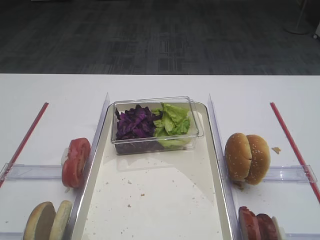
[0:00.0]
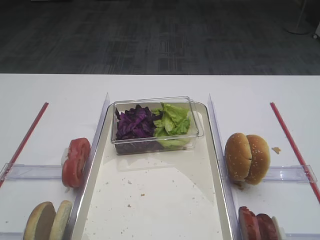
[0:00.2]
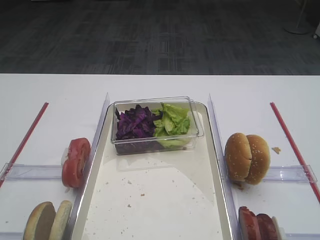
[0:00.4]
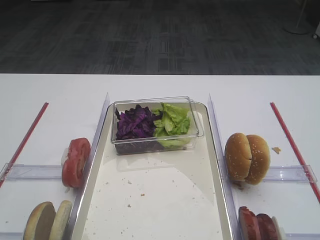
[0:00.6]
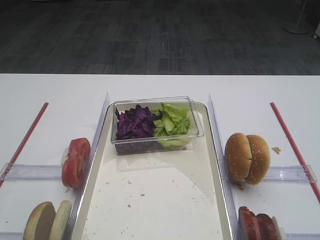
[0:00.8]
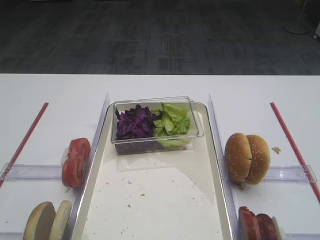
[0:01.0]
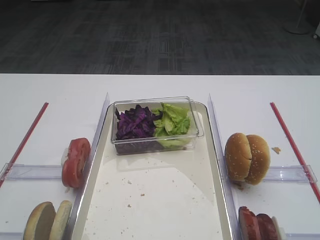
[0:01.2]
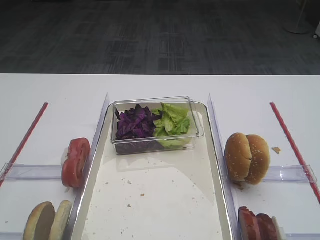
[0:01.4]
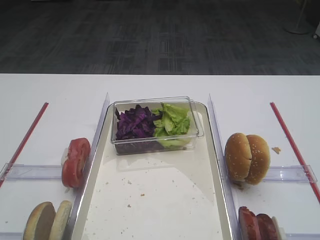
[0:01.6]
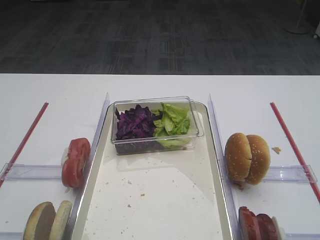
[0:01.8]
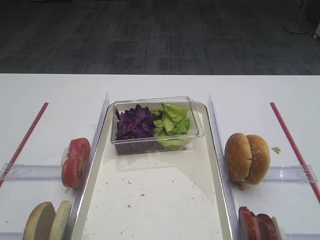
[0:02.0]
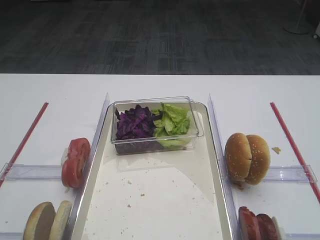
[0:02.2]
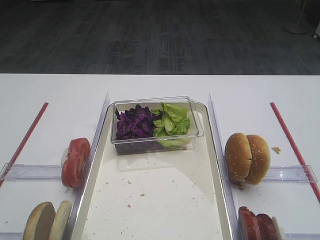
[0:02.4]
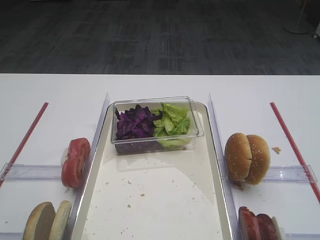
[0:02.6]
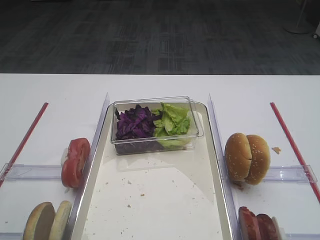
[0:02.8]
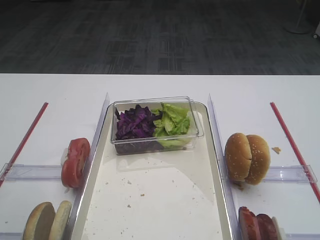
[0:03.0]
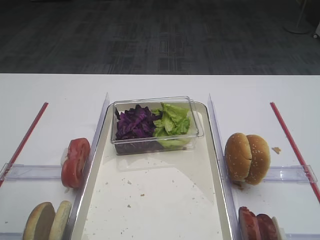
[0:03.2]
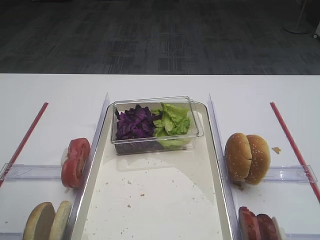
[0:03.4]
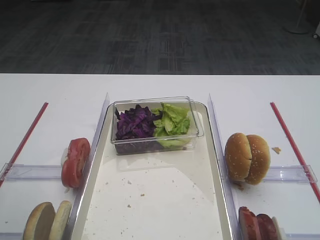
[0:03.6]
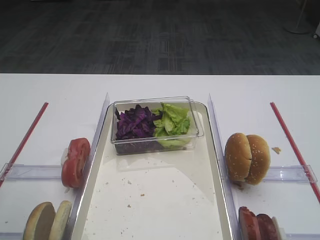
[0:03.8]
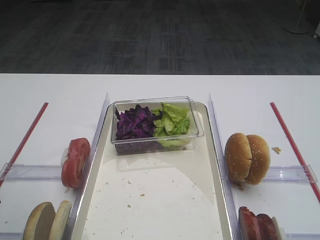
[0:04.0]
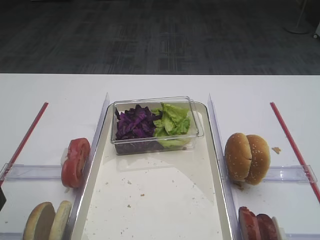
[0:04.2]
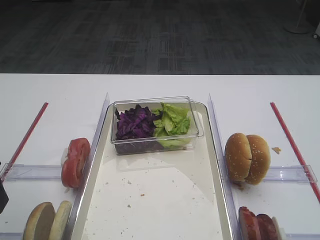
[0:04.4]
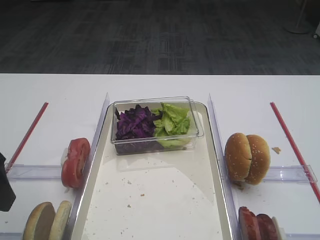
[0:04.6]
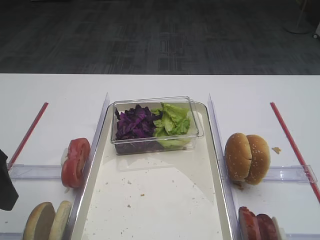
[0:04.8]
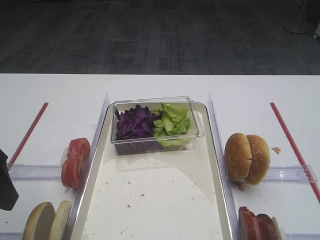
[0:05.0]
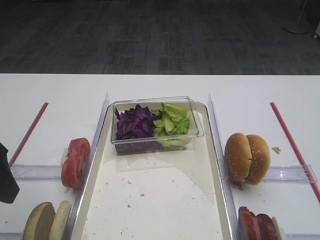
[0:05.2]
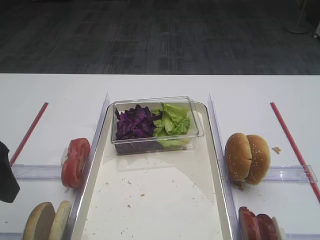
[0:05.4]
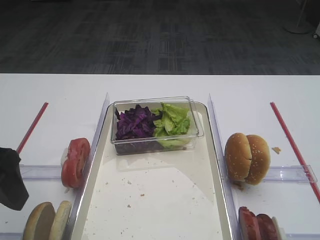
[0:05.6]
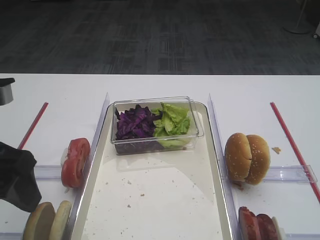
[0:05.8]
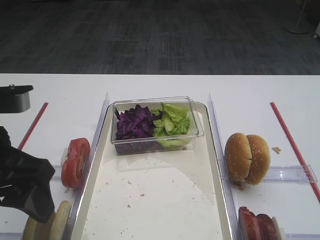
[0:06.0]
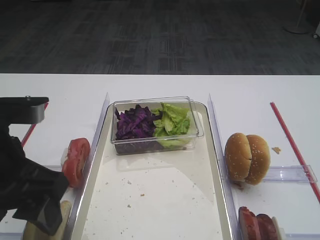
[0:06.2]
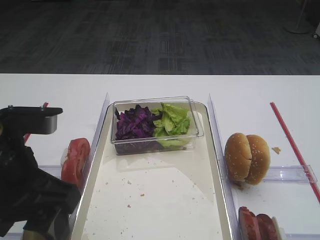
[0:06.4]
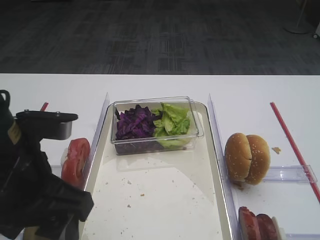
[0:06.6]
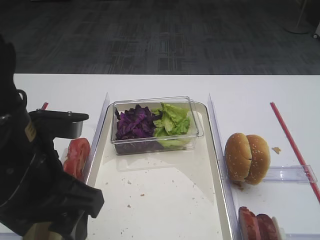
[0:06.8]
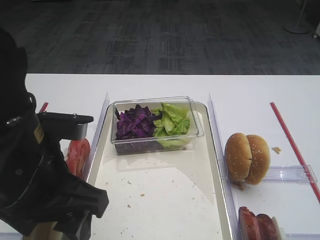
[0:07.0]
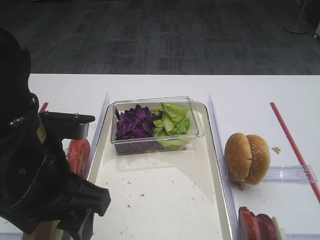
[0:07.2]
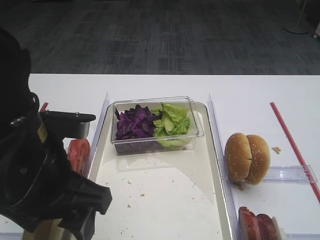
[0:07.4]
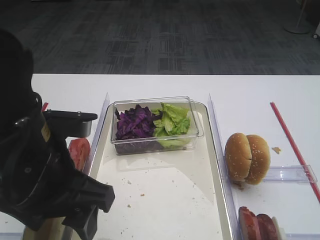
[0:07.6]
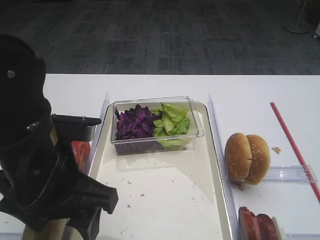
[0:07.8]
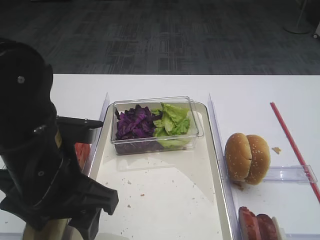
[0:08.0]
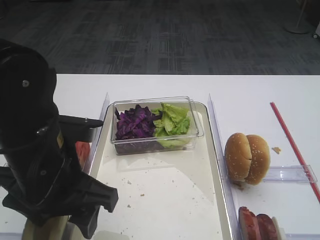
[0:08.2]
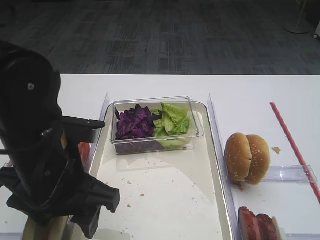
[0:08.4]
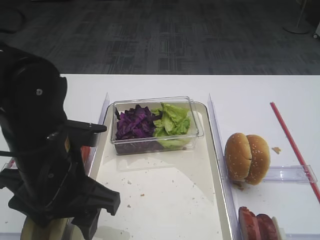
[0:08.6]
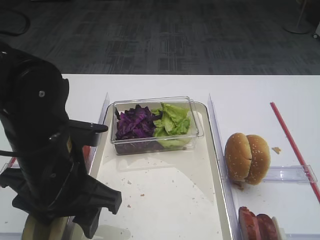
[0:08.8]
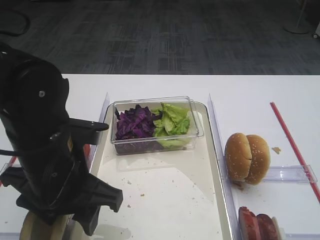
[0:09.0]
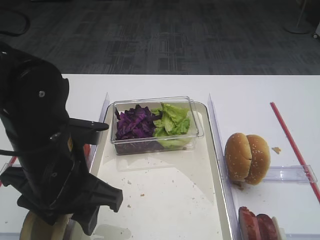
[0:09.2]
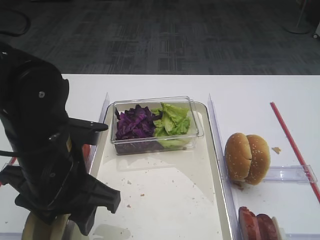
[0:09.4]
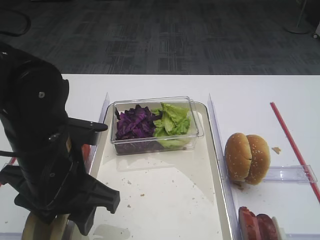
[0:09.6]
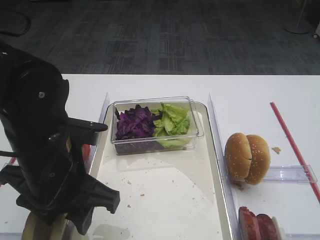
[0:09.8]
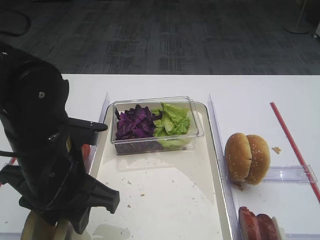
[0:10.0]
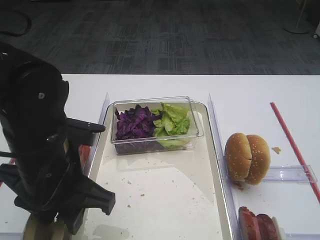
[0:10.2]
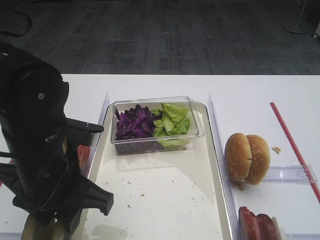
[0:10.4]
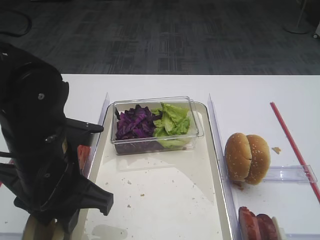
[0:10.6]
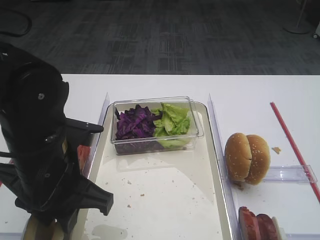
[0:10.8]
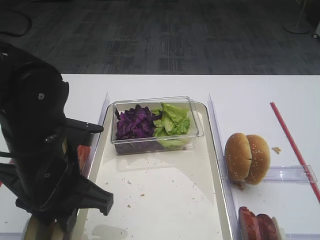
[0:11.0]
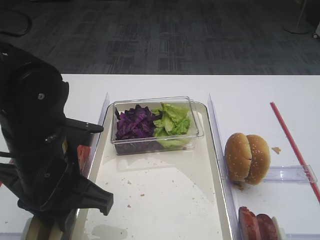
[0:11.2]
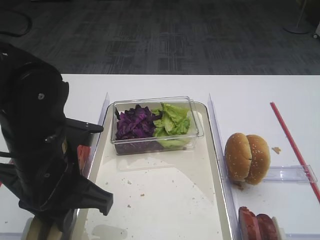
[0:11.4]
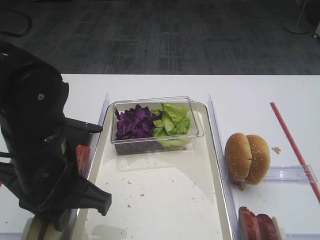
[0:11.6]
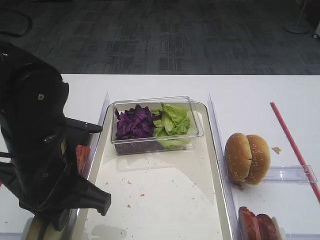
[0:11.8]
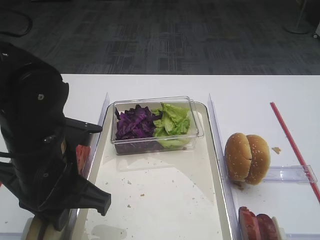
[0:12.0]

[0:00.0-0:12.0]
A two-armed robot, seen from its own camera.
0:04.4 to 0:06.0: The left gripper travels to the right by roughly 5 cm.
0:06.0 to 0:07.6: The left gripper shifts about 5 cm to the right.
0:07.6 to 0:09.0: The grippers make only small movements.
0:09.0 to 0:10.4: Neither gripper changes place.
0:10.4 to 0:12.0: The left gripper closes up.

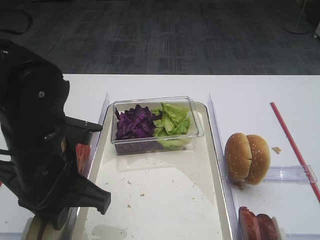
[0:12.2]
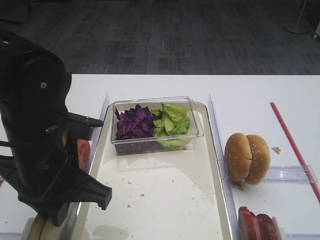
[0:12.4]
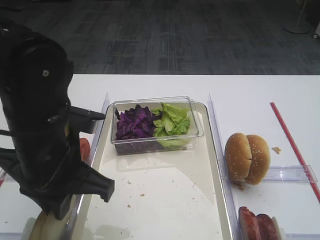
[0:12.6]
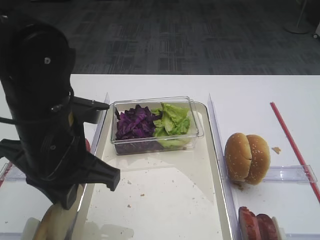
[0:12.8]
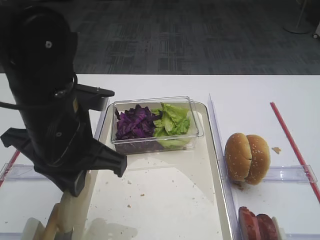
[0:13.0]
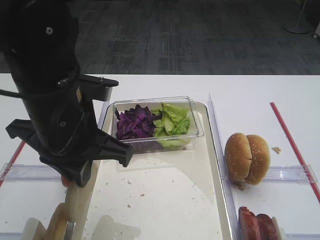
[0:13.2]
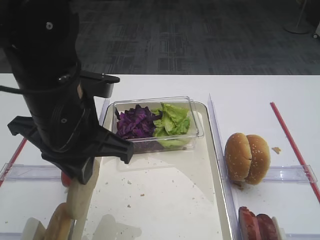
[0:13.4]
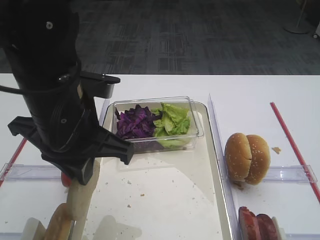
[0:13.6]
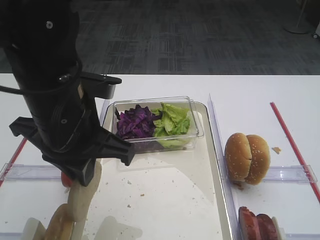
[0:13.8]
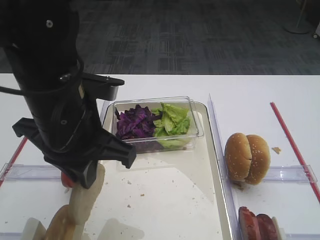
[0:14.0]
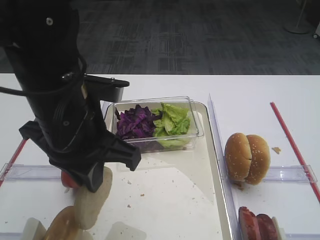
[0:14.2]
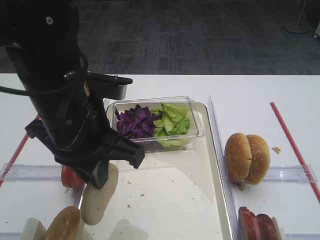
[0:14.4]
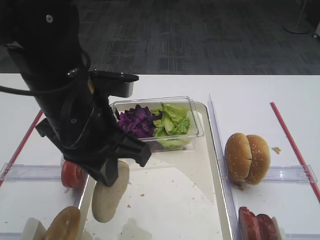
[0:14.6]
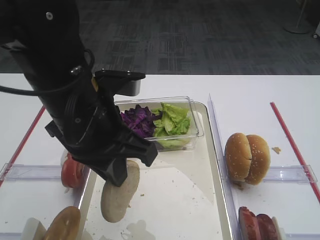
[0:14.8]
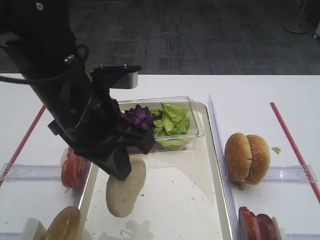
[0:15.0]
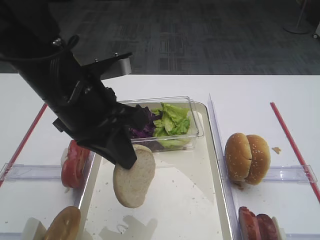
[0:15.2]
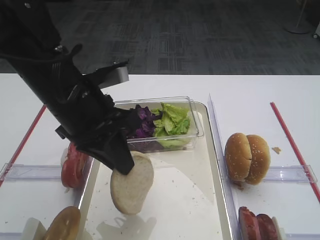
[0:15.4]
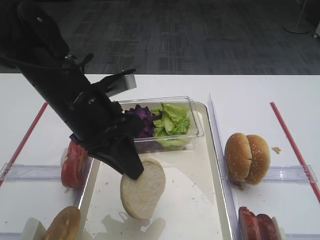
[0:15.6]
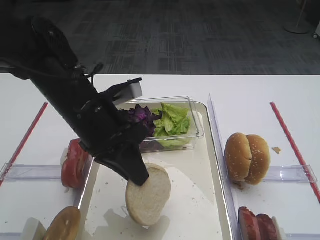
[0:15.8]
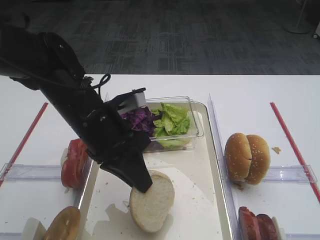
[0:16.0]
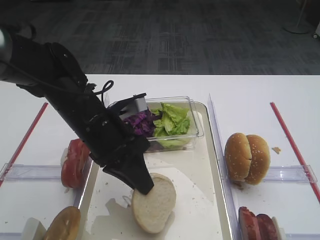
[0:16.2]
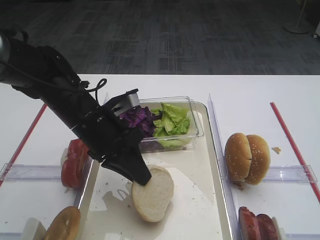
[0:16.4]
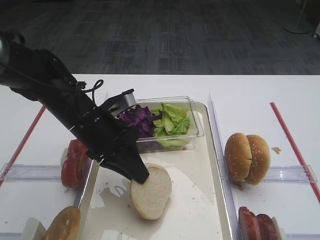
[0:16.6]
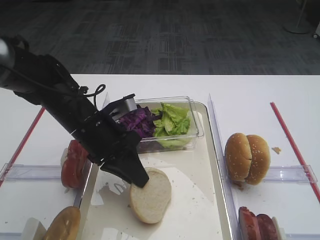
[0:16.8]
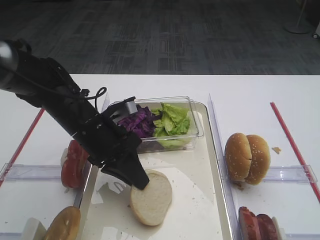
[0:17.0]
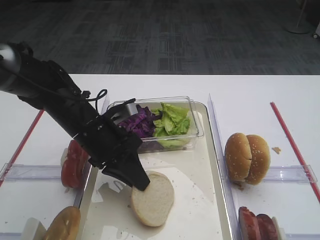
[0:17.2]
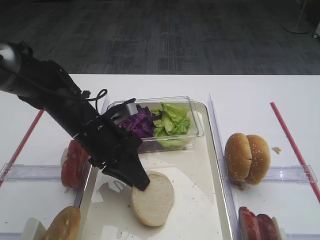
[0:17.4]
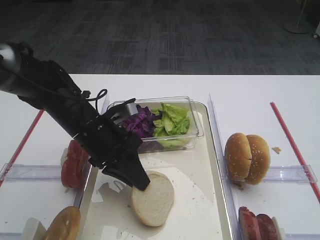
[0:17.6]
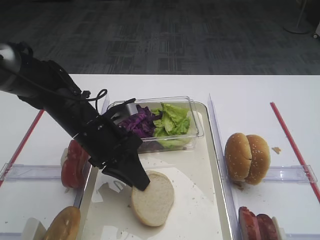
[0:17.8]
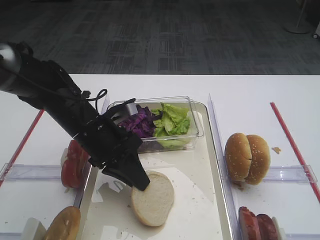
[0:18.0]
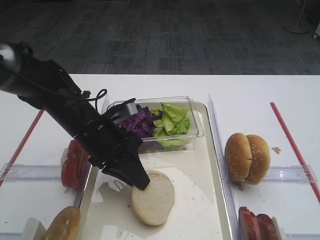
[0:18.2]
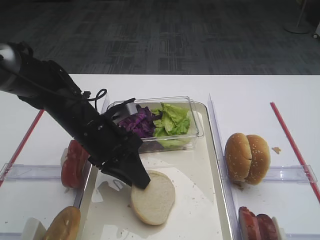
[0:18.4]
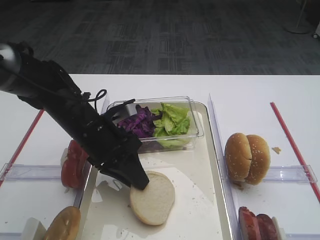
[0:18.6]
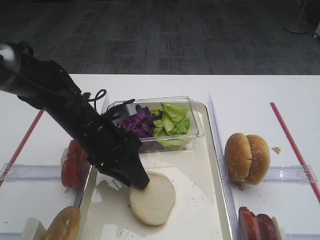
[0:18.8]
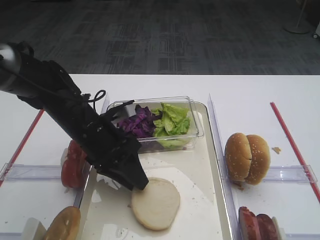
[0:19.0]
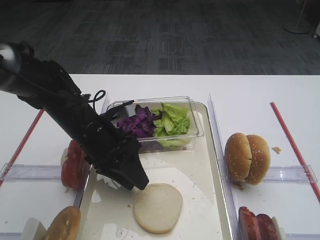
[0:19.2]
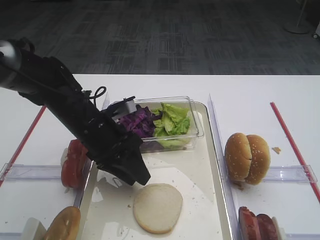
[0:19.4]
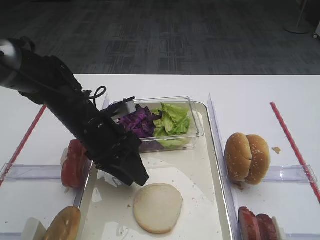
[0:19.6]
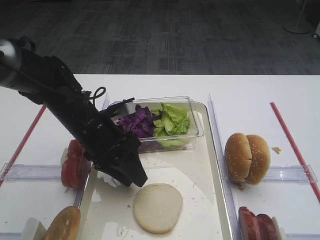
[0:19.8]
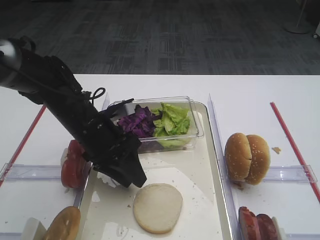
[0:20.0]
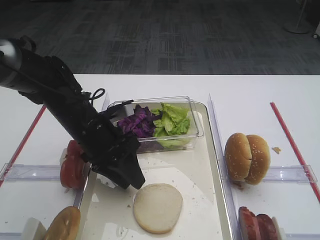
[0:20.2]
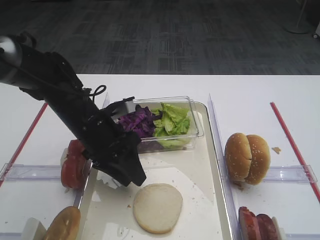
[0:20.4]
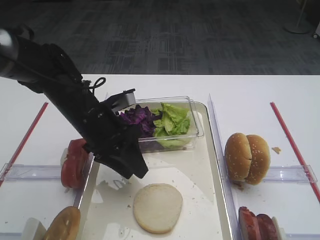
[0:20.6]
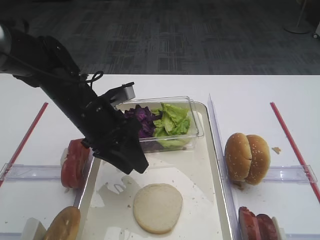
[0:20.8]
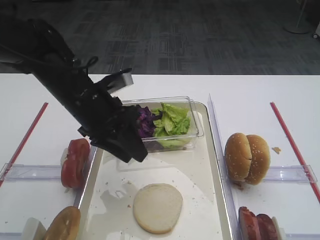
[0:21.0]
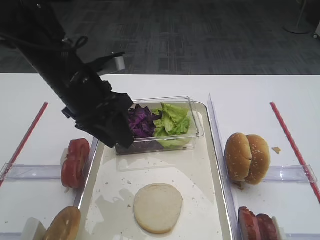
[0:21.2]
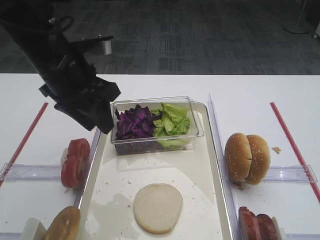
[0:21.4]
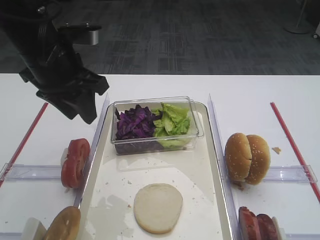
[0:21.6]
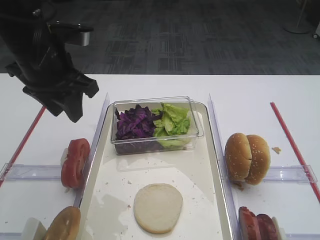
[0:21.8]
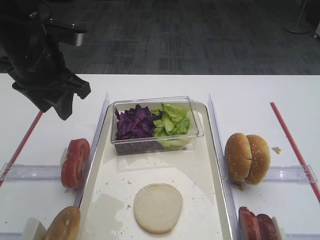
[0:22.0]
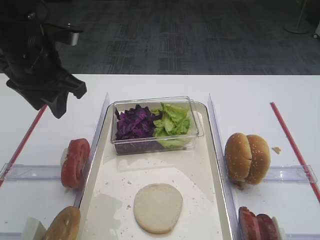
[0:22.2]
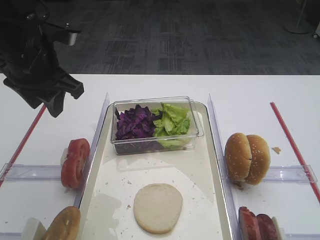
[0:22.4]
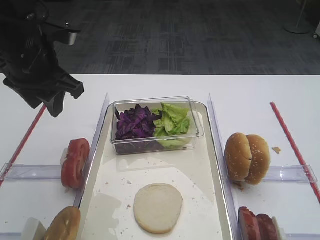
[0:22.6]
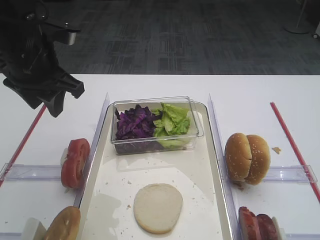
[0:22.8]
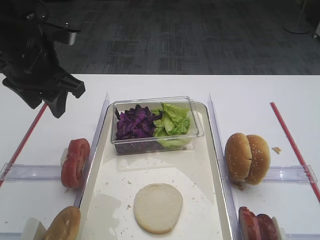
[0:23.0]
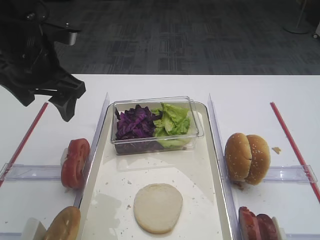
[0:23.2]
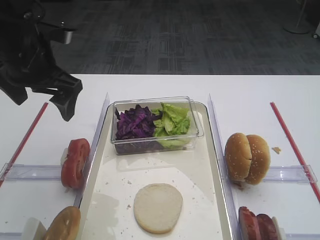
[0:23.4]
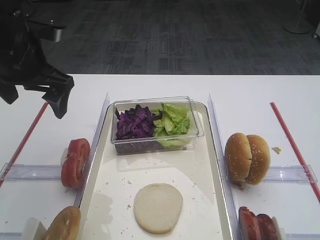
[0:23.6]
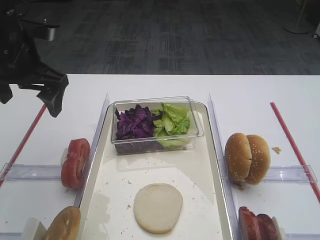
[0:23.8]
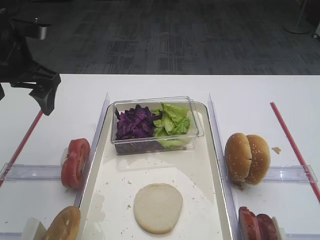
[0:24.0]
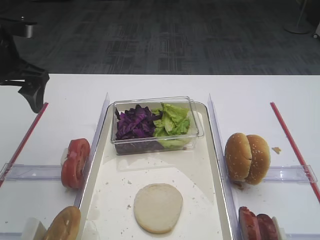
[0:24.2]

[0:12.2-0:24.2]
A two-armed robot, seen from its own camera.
Step, 0:13.0 to 0:20.4: Place the bread slice on the tray with the left gripper.
0:12.2 to 0:13.8: The left gripper moves upward, about 5 cm.
0:15.2 to 0:16.6: The left gripper goes about 10 cm downward and forward.
0:16.6 to 0:18.2: The grippers move only a little.
0:18.2 to 0:19.8: The left gripper opens up.
0:19.8 to 0:21.2: The left gripper goes some 10 cm upward.
0:21.2 to 0:22.6: The left gripper moves to the left and upward, some 10 cm.
0:22.6 to 0:24.2: The left gripper shifts some 5 cm to the left, and opens up.
